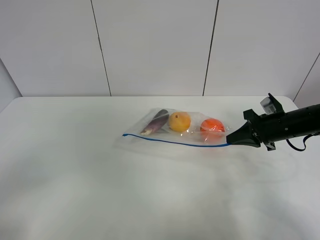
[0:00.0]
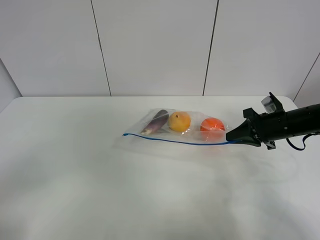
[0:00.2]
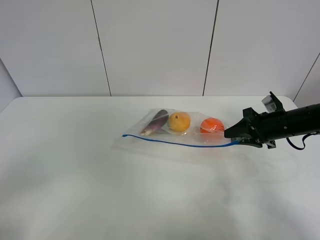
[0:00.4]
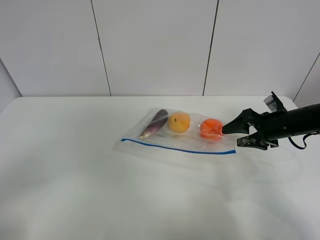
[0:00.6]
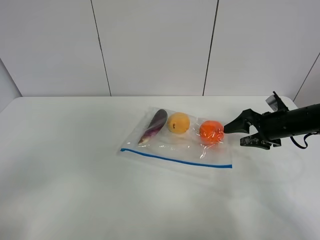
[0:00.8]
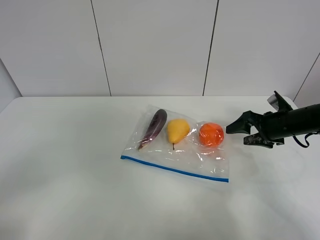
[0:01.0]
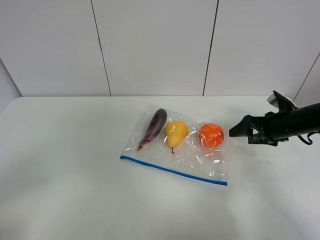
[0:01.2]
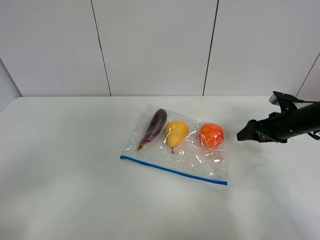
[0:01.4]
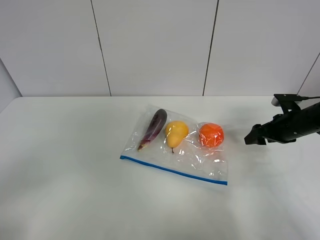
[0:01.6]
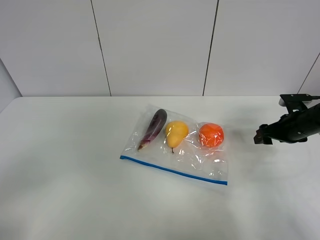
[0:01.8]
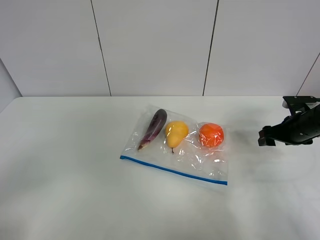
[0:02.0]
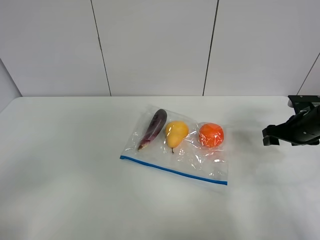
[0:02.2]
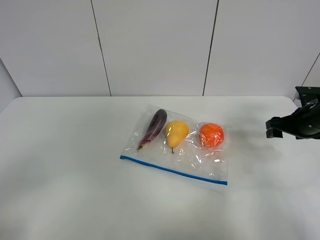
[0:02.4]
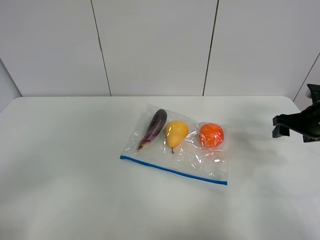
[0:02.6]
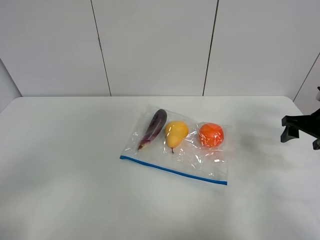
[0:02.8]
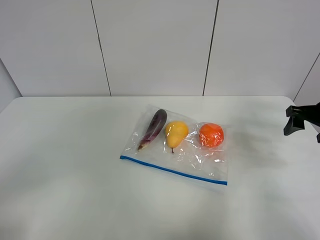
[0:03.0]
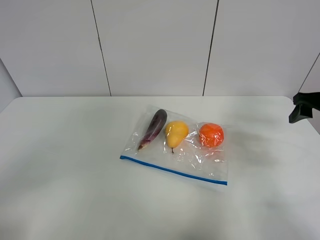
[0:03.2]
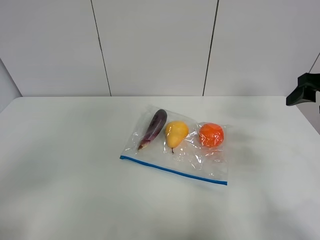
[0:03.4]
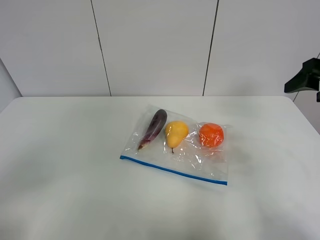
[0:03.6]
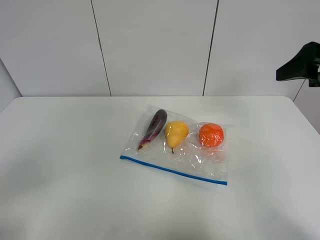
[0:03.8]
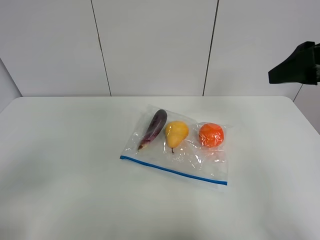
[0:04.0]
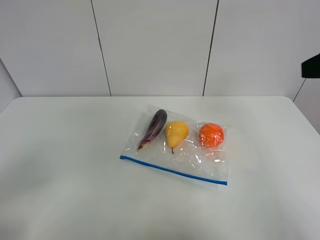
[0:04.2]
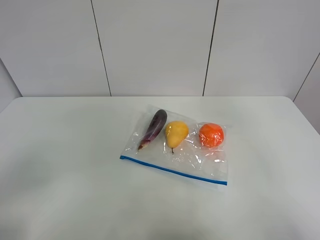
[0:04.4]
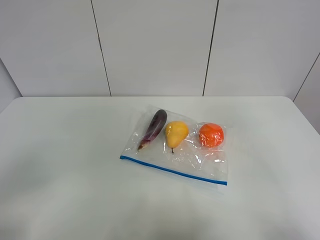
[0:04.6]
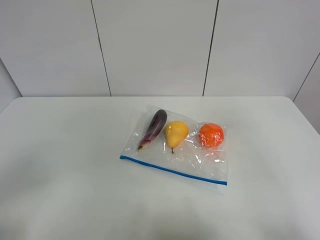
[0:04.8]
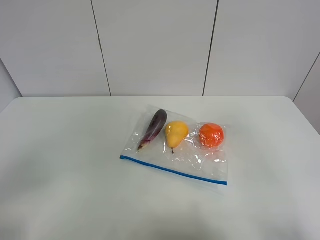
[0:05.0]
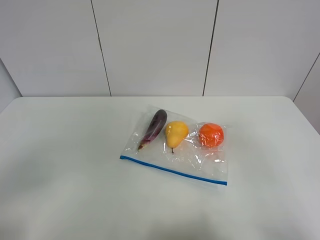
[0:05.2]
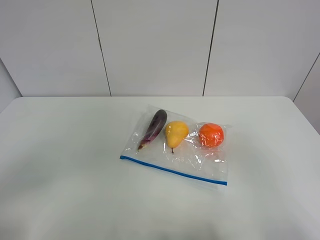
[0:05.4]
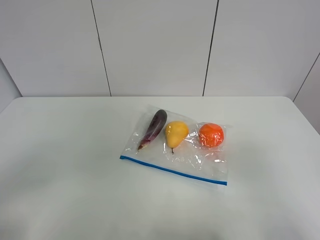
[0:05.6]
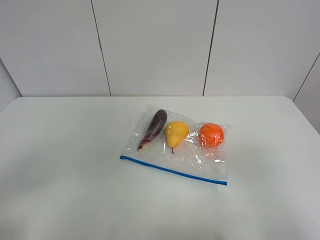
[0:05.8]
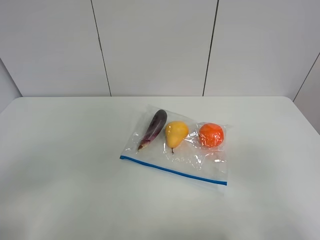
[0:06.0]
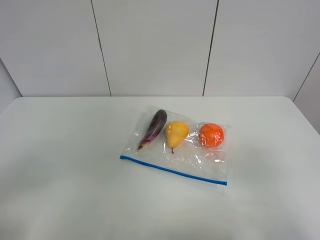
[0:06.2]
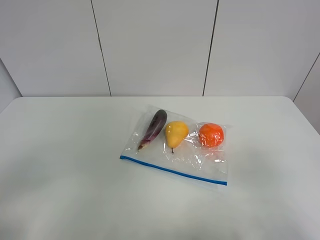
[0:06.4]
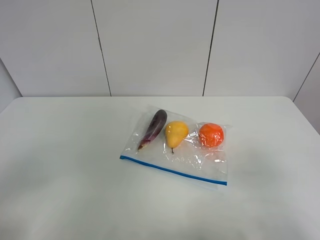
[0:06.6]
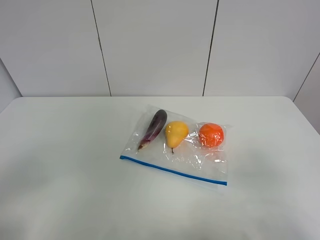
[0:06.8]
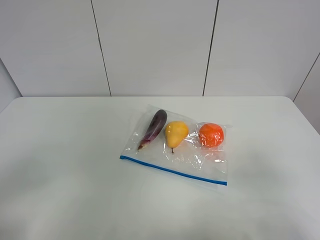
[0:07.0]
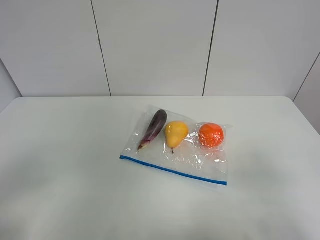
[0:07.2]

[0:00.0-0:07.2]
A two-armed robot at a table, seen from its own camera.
0:00.0 to 0:01.4: The right gripper opens up.
0:01.4 to 0:02.8: The right gripper is displaced upward by approximately 5 cm.
0:02.8 to 0:04.4: The right gripper is displaced upward, backward and to the left by approximately 30 cm.

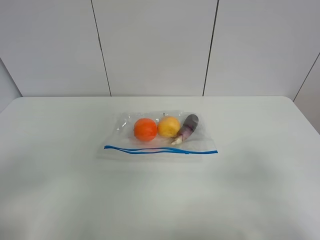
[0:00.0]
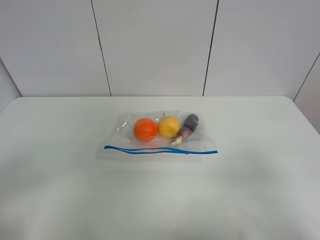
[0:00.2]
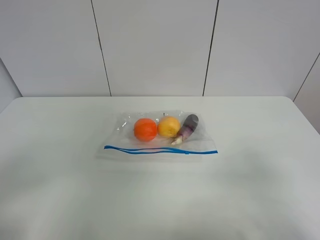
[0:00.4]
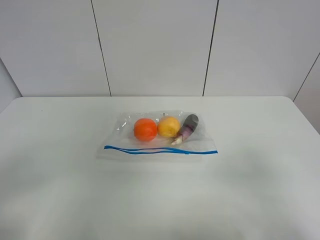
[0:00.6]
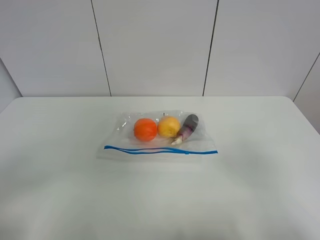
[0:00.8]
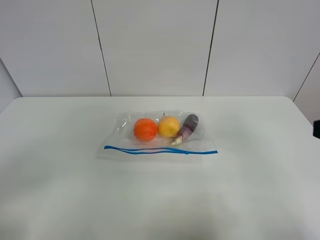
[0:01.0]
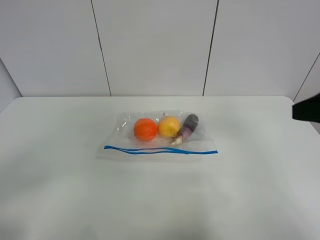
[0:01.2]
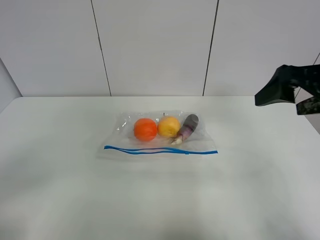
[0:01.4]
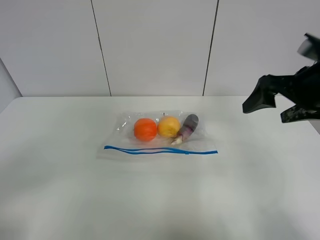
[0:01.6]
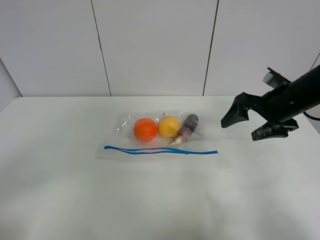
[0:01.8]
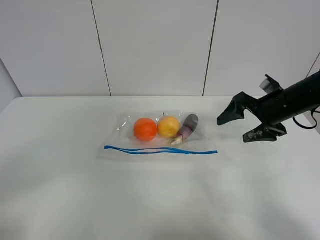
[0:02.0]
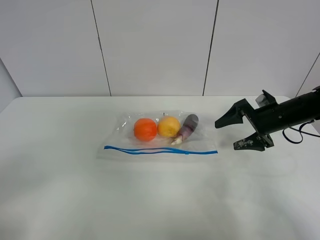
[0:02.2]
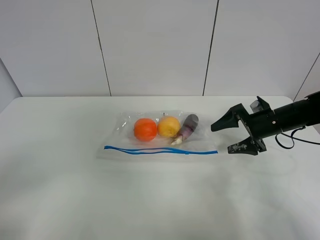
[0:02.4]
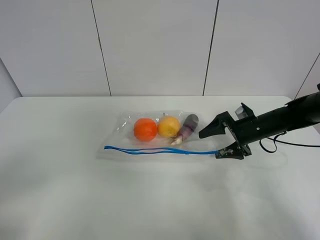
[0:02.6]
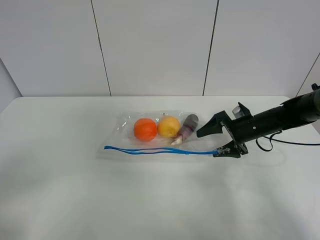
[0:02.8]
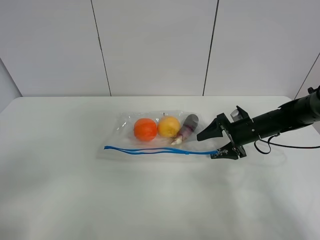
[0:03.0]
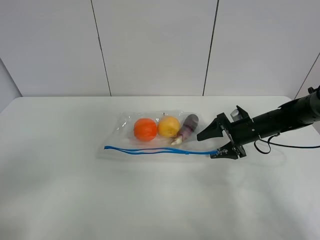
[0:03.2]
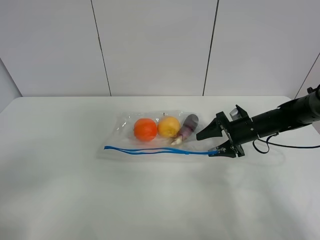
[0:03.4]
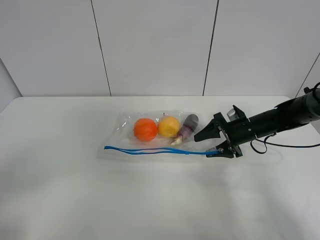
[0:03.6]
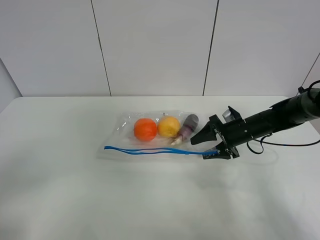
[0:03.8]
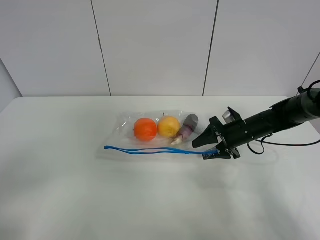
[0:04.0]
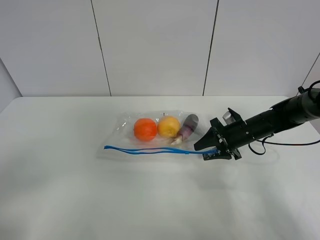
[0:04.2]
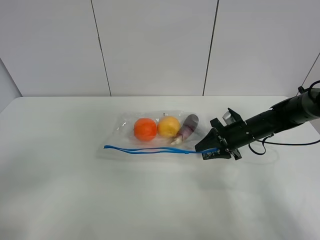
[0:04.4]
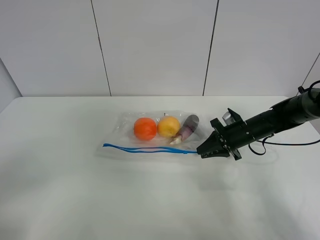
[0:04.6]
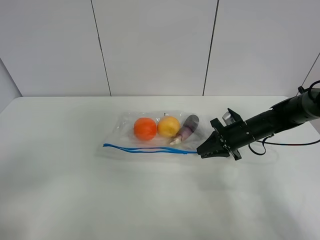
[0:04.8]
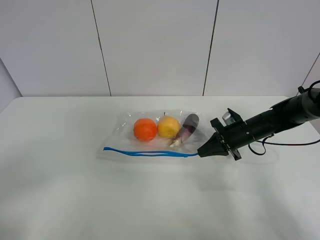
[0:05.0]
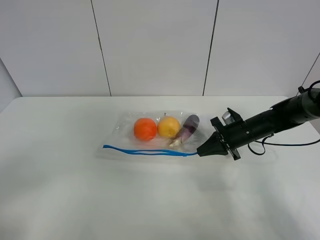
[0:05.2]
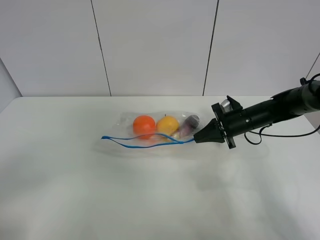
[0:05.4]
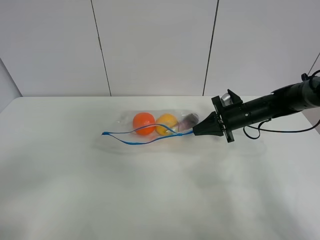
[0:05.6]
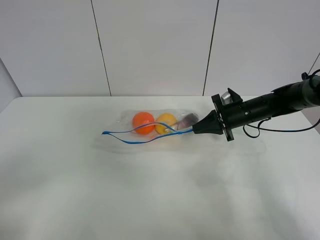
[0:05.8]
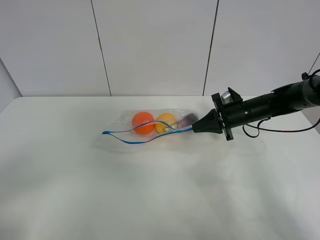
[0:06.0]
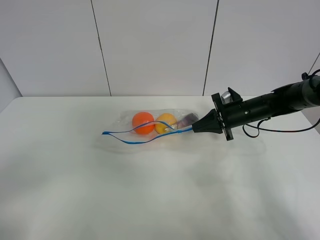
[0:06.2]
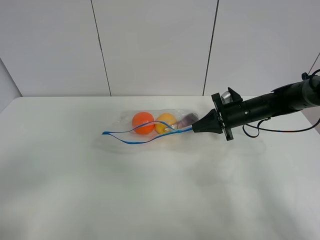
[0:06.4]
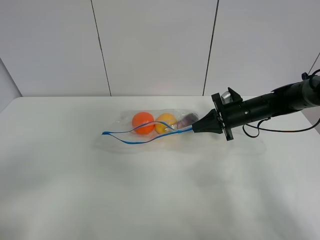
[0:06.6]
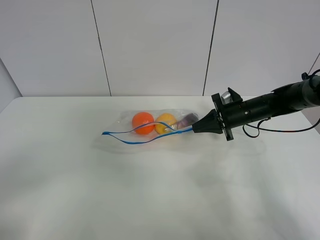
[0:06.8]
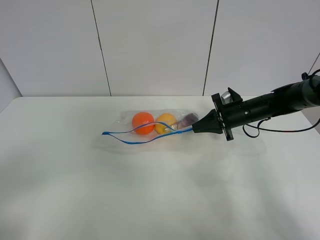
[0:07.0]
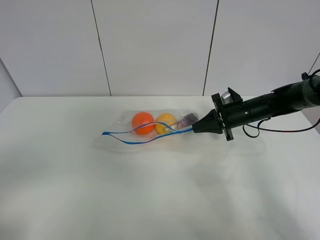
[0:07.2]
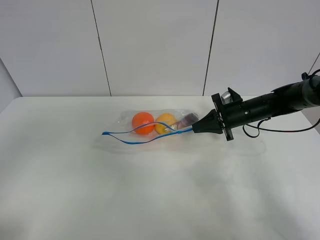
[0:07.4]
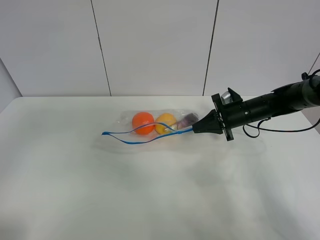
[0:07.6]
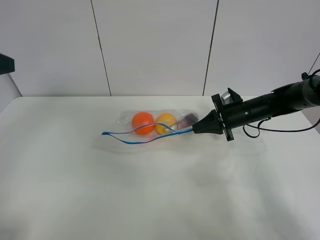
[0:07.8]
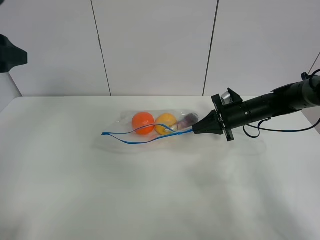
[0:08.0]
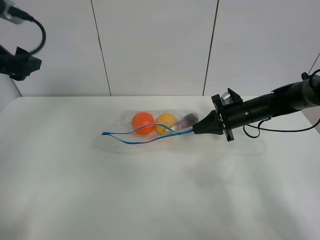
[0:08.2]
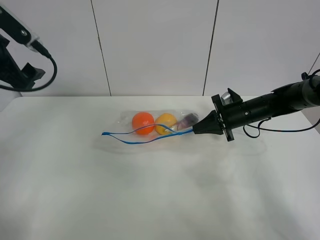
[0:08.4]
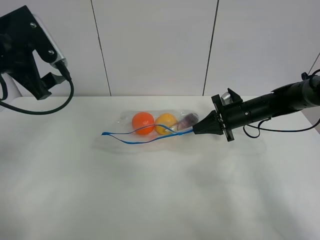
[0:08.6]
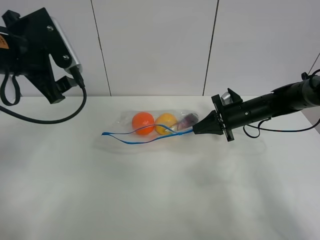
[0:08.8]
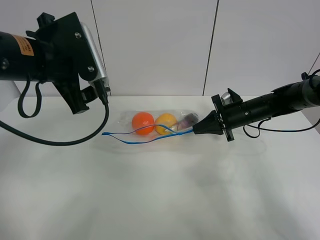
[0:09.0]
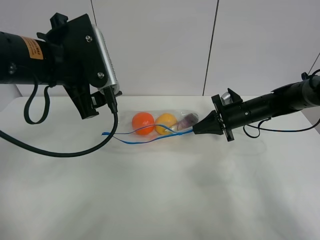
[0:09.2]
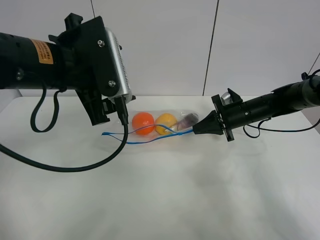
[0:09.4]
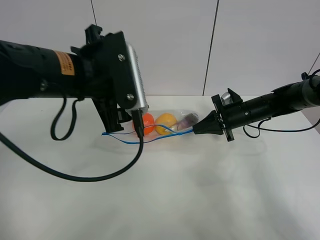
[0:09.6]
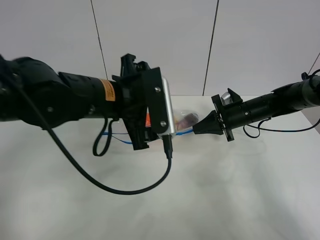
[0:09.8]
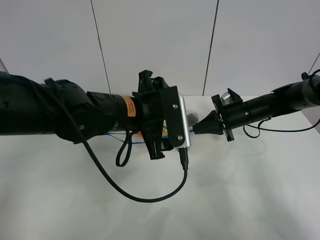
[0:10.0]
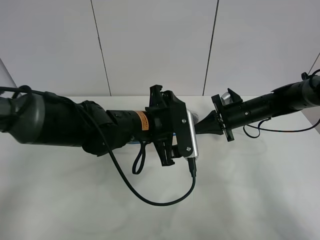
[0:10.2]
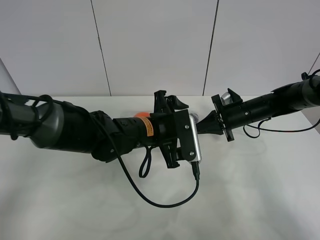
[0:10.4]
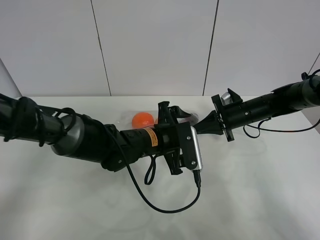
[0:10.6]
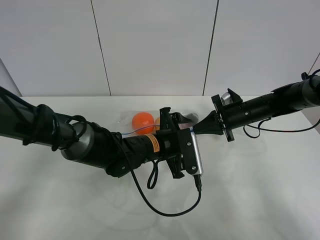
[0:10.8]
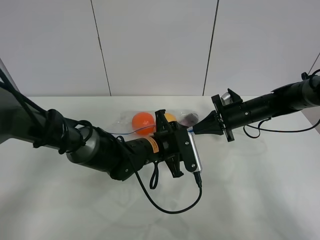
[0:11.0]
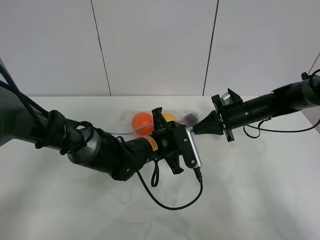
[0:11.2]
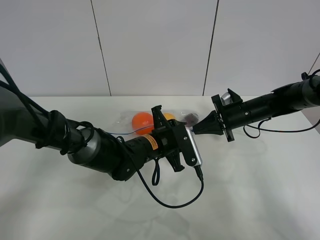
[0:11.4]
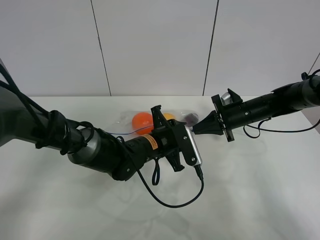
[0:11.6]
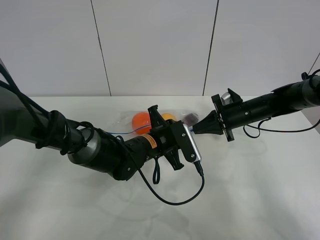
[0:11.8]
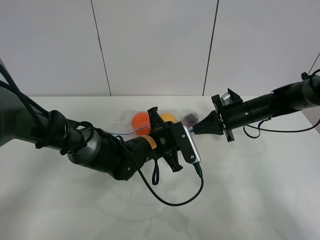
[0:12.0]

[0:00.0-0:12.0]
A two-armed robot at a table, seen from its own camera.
Step, 0:00.0 to 0:04.8: Grasp the fruit bag with right gripper.
Step, 0:05.0 to 0:05.8: Lift the fruit bag with your right gripper.
0:00.0 to 0:01.6: The right gripper goes about 25 cm forward.
0:01.6 to 0:03.0: The right gripper goes approximately 25 cm downward and forward.
0:03.0 to 0:04.4: The right gripper closes.
0:04.4 to 0:06.0: The right gripper closes.
0:06.0 to 0:07.6: The left gripper travels forward and upward by roughly 15 cm.
0:07.6 to 0:09.0: The left gripper shifts approximately 20 cm forward and to the right.
0:09.0 to 0:10.4: The left gripper moves downward and to the right, approximately 20 cm.
0:10.4 to 0:12.0: The left gripper moves downward, about 5 cm, and closes.

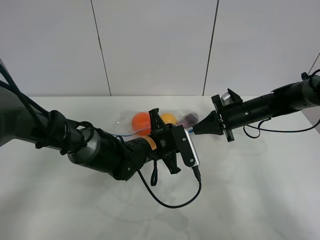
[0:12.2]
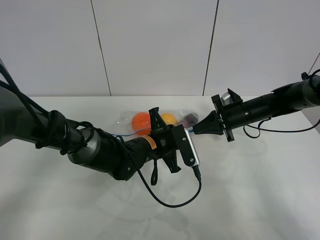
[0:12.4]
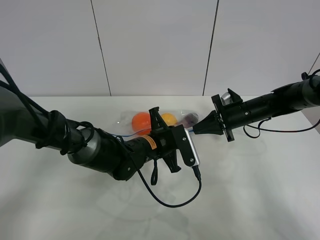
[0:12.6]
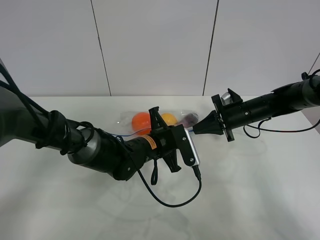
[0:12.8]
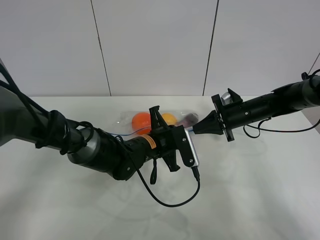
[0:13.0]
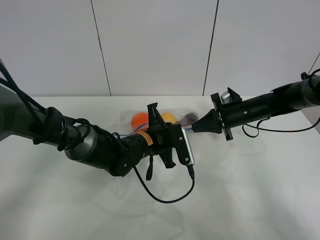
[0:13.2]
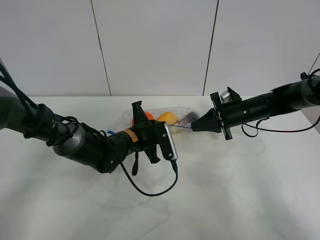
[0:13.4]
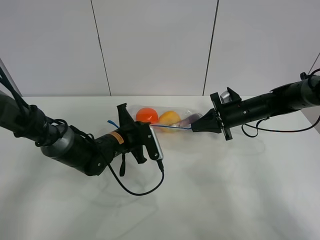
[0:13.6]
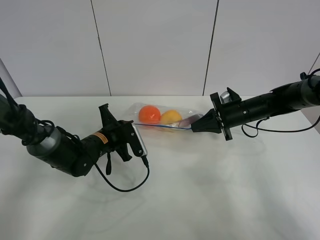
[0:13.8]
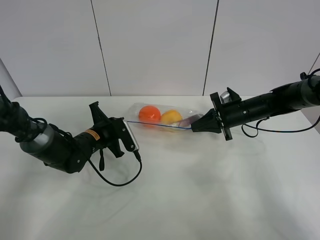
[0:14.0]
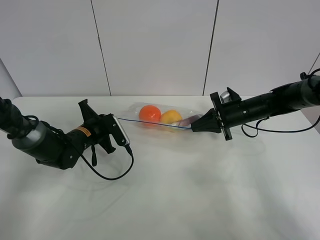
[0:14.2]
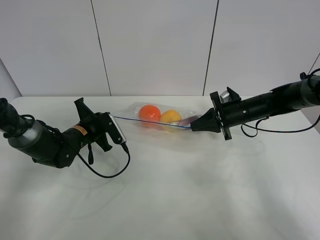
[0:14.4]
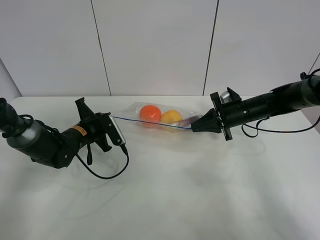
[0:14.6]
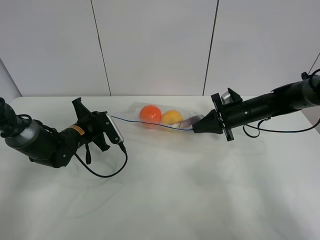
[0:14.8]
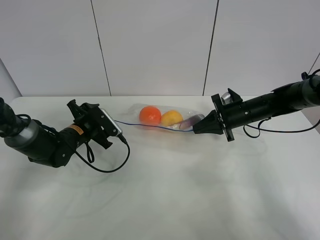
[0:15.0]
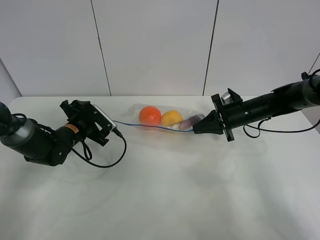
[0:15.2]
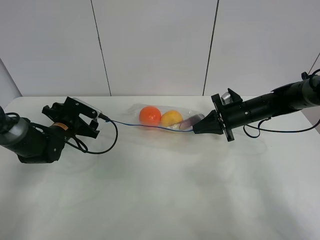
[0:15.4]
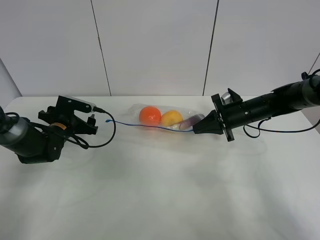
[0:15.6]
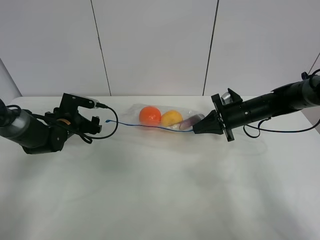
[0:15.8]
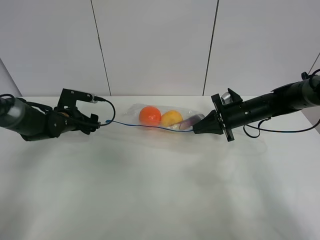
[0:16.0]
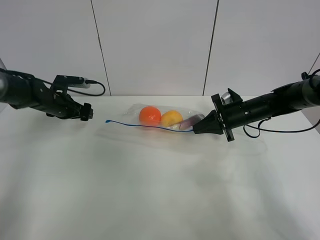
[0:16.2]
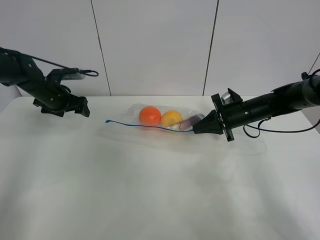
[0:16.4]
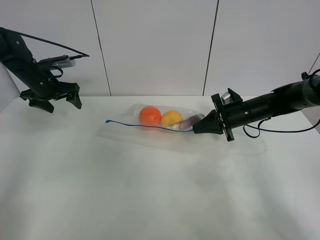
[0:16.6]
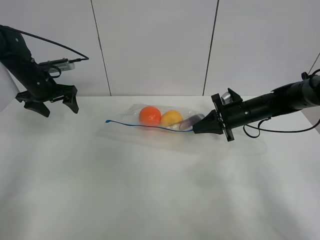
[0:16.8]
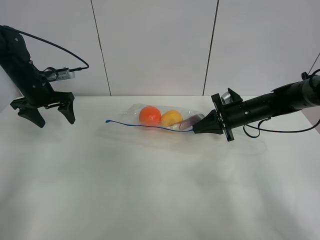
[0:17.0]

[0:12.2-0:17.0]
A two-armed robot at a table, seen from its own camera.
Step, 0:12.2 to 0:15.0: Pull the fruit bag with left gripper.
0:12.2 to 0:13.8: The left gripper shifts about 15 cm to the left.
0:13.8 to 0:15.4: The left gripper travels to the left by roughly 10 cm, and opens its fingers.
0:15.4 to 0:17.0: The left gripper travels upward and forward by approximately 15 cm.
